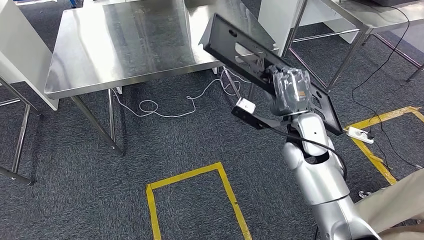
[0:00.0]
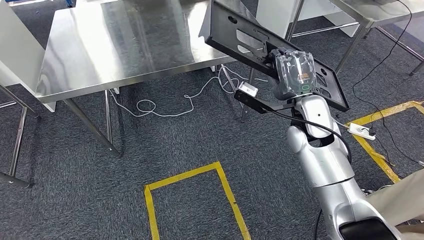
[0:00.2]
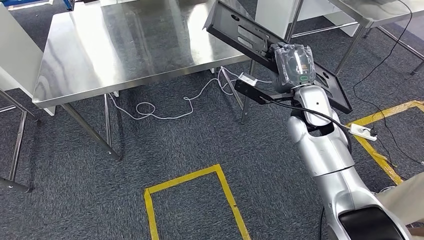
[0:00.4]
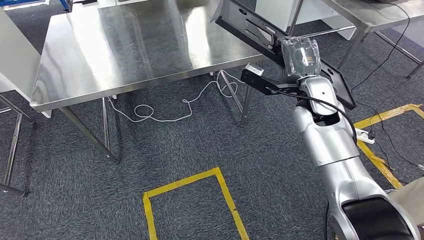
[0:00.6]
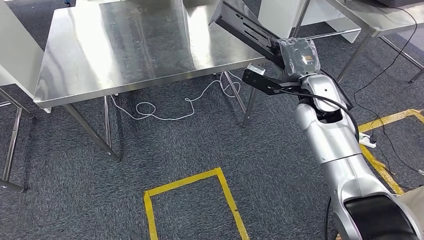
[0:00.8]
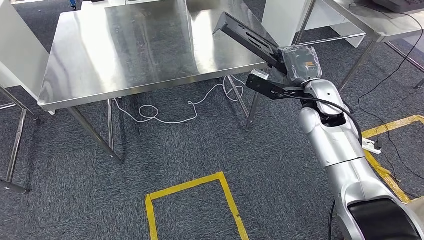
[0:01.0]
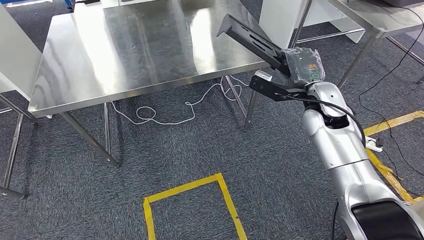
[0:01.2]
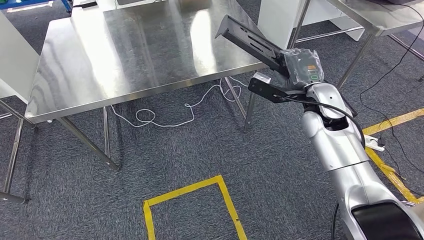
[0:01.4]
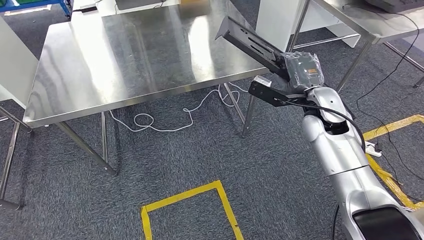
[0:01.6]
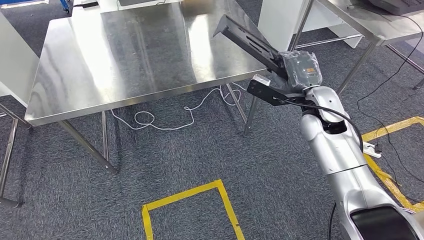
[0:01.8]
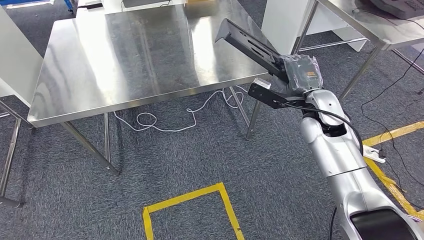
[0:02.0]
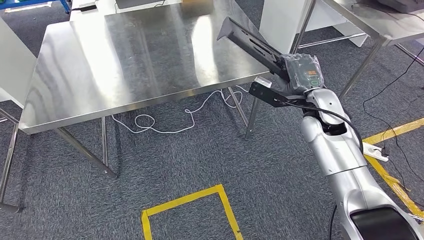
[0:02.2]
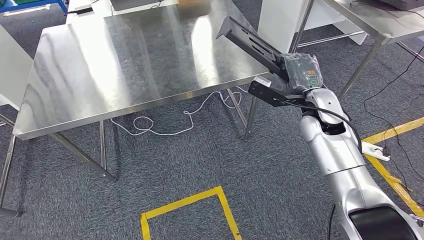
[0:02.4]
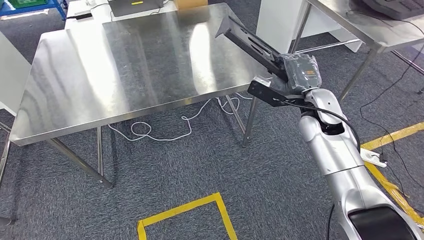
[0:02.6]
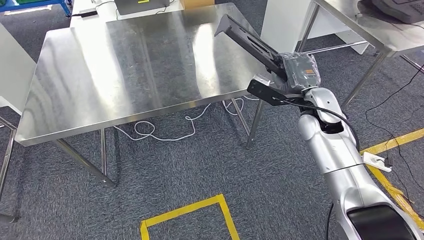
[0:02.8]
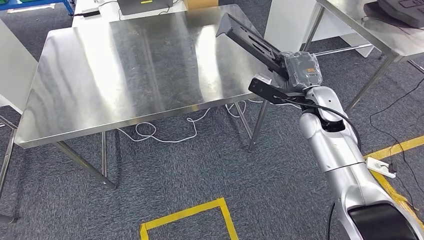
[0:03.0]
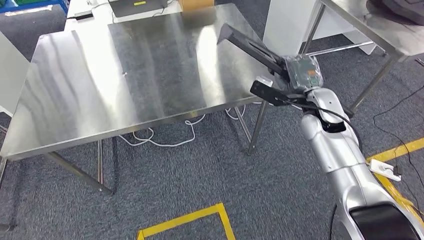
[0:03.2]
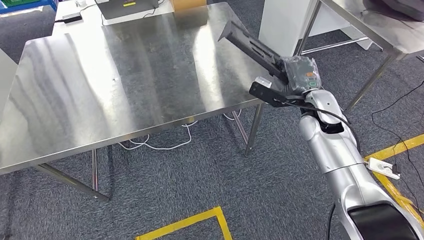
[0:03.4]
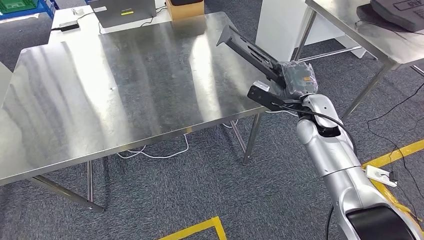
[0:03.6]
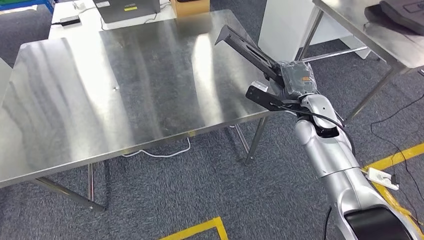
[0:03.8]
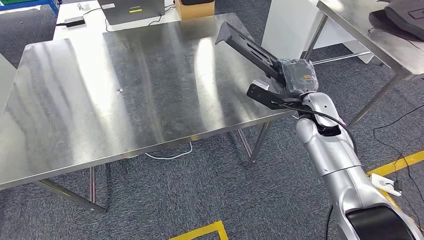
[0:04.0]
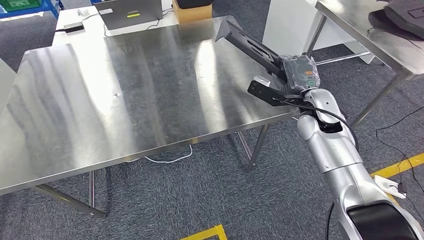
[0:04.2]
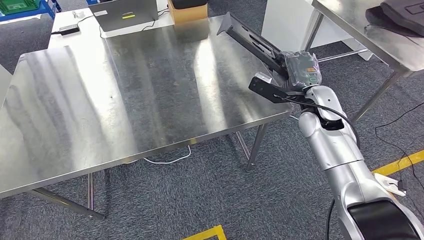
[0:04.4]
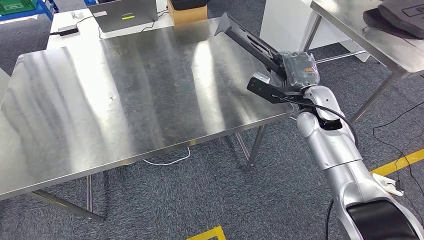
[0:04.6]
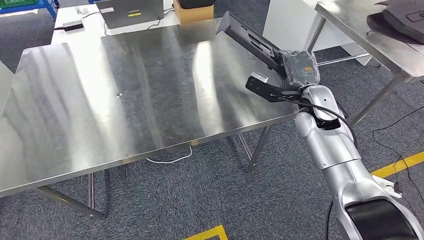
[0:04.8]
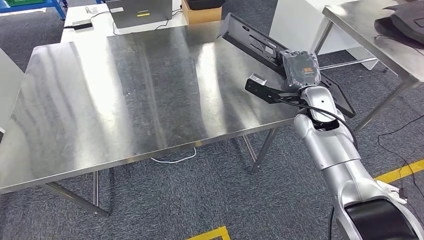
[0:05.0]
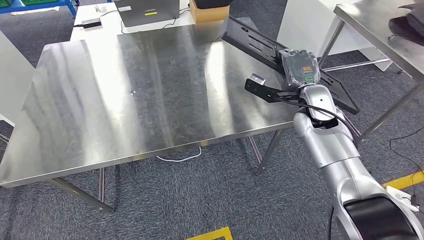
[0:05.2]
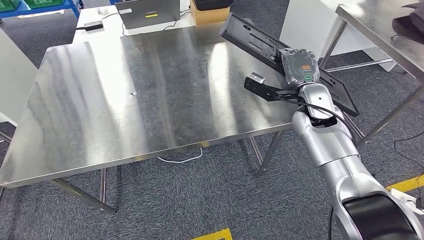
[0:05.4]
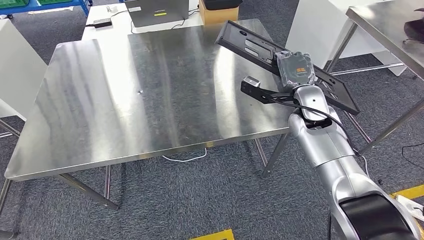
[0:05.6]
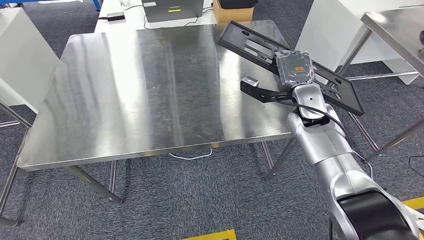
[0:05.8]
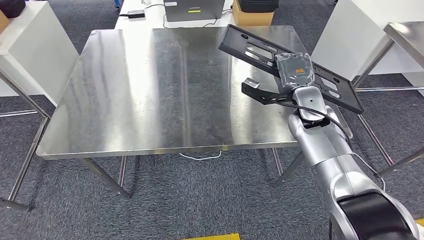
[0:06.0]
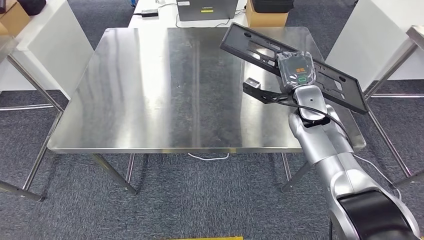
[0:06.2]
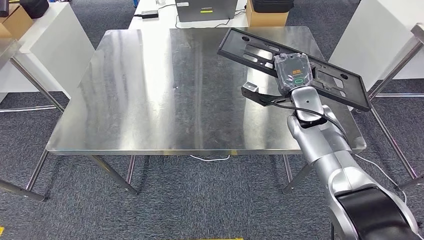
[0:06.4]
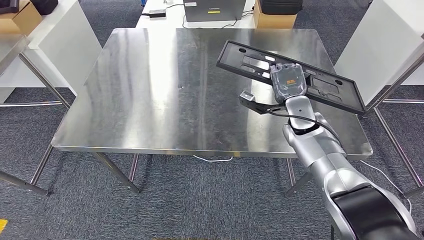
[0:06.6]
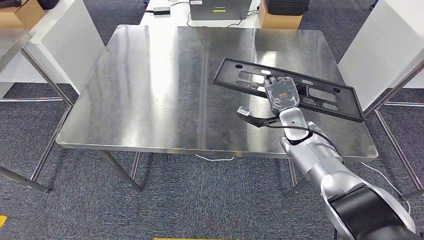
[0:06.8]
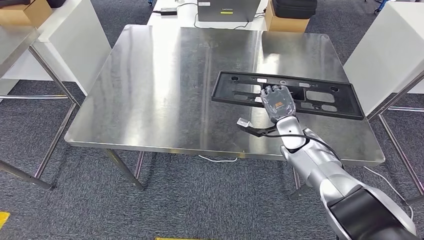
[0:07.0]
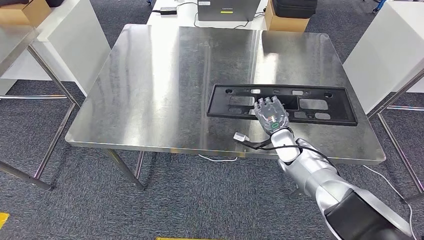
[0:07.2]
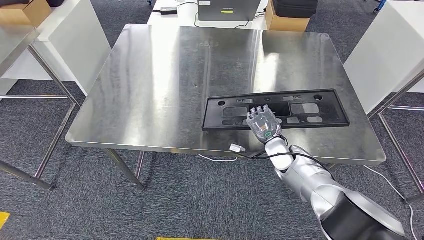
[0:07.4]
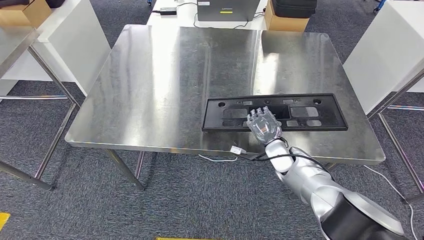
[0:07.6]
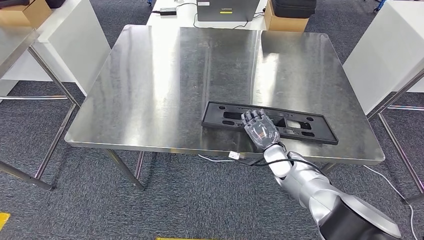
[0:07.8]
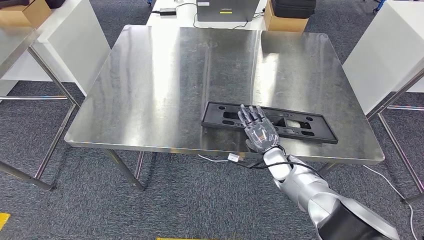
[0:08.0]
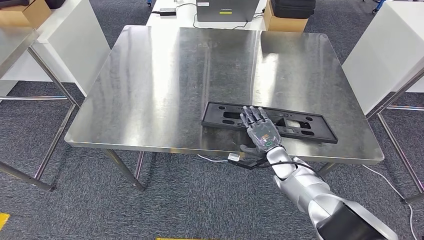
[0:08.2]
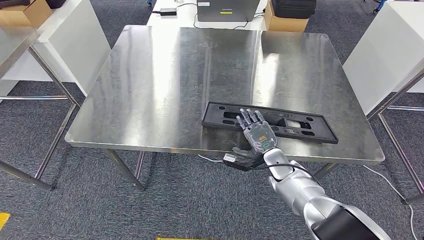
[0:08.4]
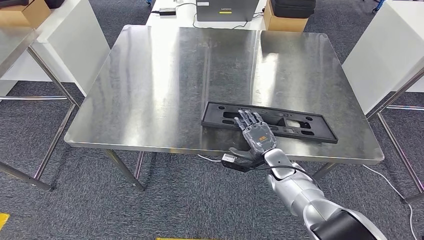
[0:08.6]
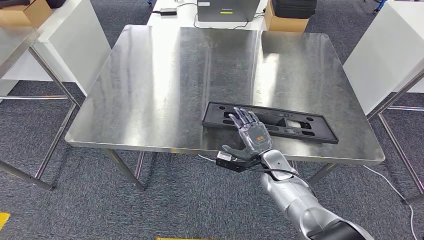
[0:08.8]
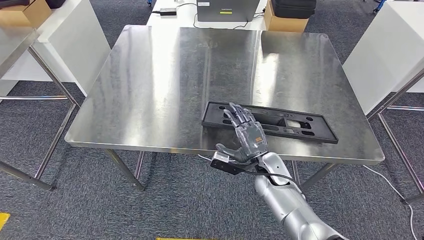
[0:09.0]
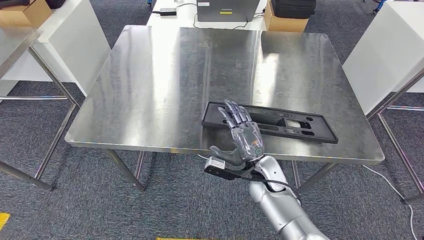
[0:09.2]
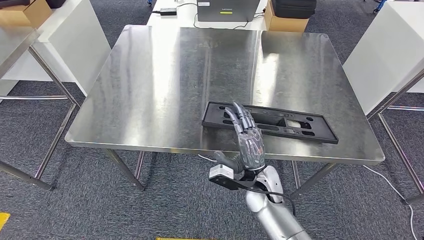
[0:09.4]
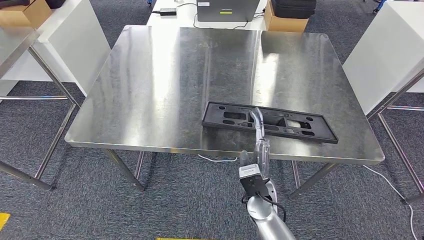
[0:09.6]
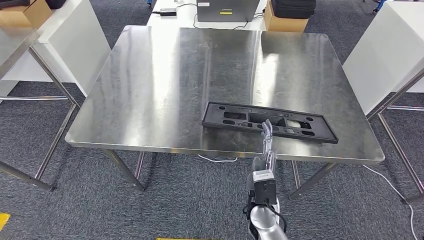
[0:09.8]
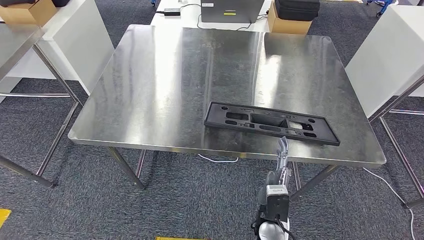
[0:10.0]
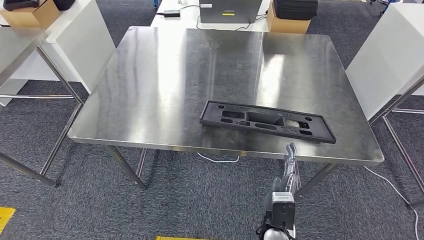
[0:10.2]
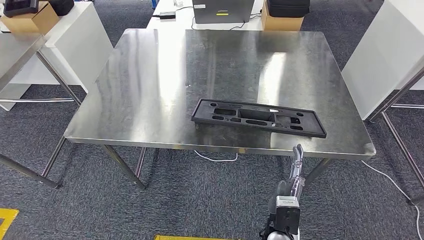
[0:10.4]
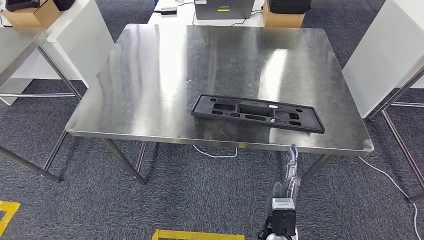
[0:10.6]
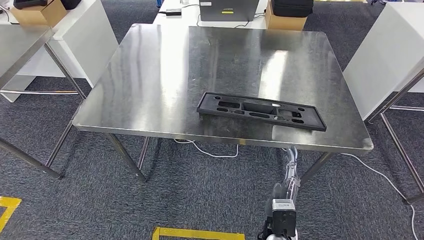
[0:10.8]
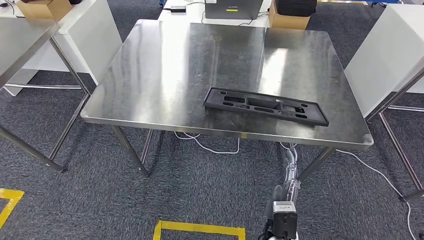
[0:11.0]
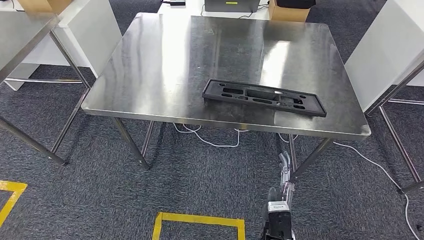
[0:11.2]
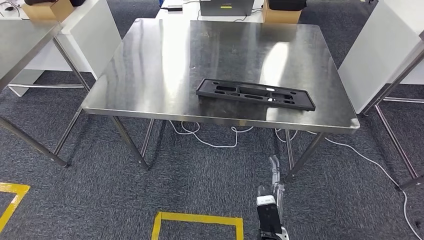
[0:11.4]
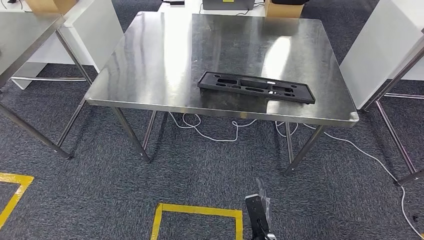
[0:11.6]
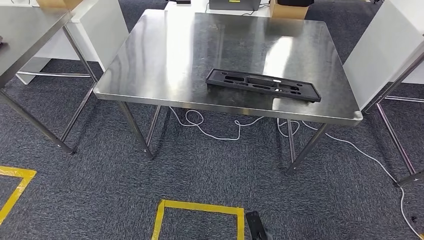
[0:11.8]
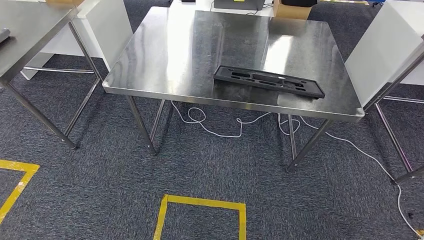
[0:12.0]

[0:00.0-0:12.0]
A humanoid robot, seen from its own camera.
Step, 0:00.0 to 0:09.4: Insert the large material into the corresponding slot on the workbench.
0:07.6 to 0:09.0: The right hand moves roughly 5 cm.

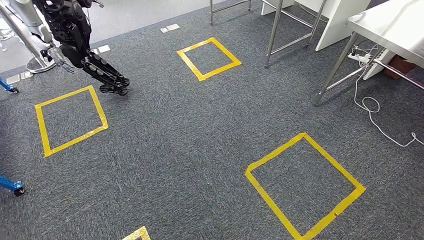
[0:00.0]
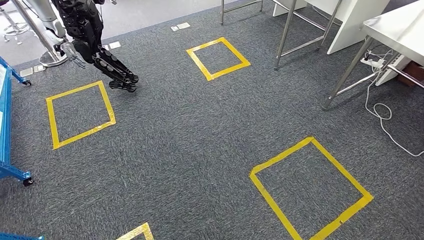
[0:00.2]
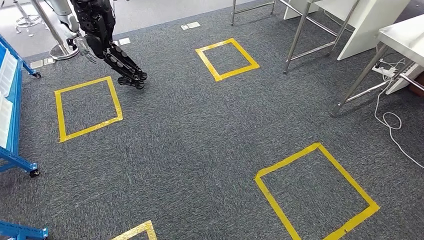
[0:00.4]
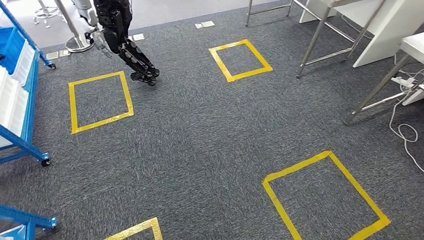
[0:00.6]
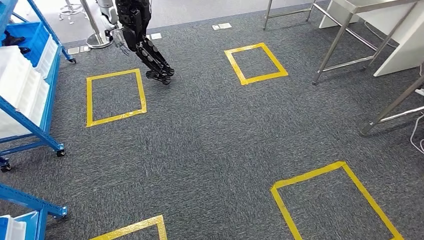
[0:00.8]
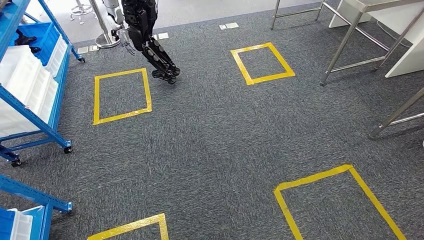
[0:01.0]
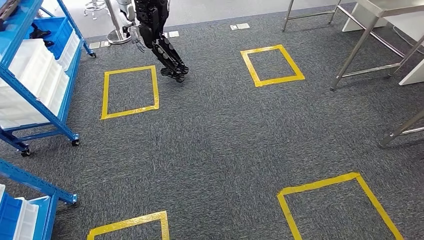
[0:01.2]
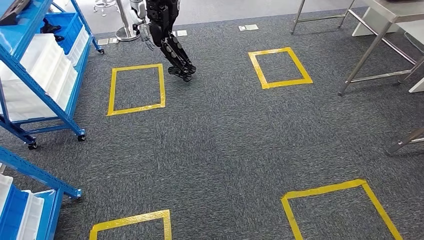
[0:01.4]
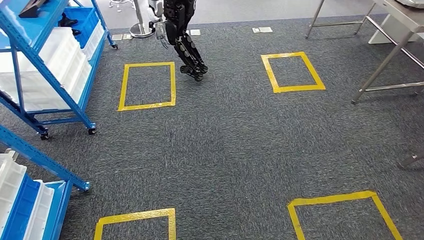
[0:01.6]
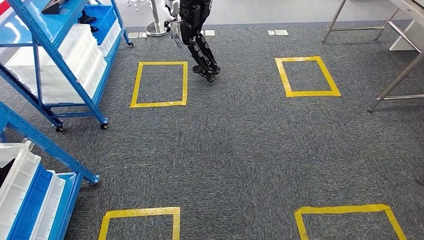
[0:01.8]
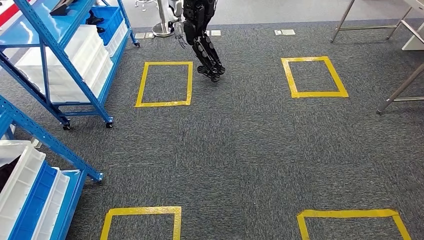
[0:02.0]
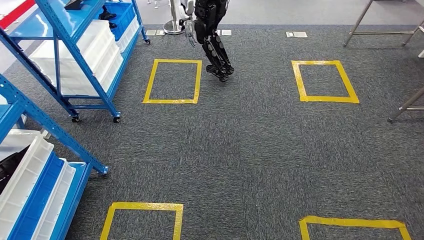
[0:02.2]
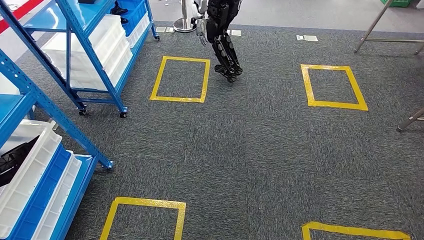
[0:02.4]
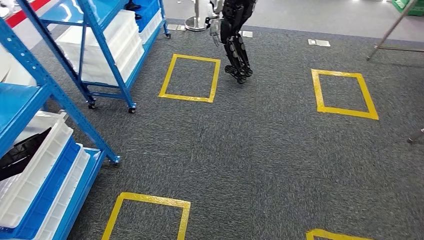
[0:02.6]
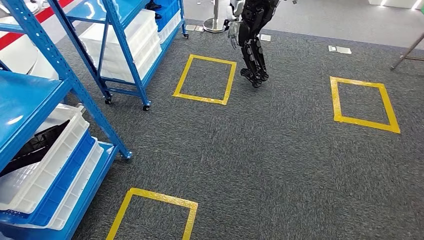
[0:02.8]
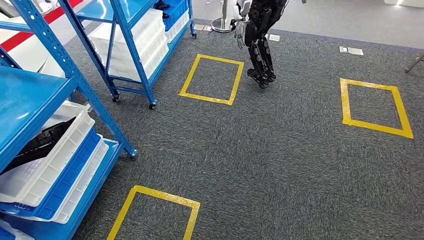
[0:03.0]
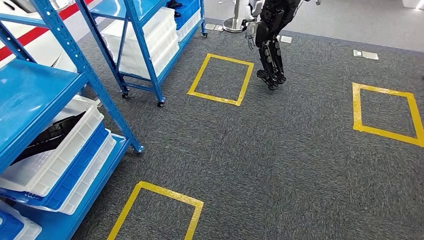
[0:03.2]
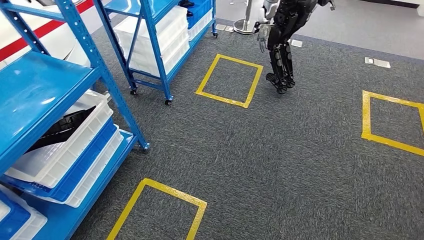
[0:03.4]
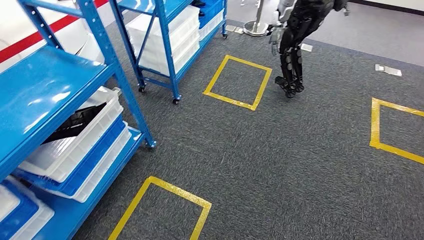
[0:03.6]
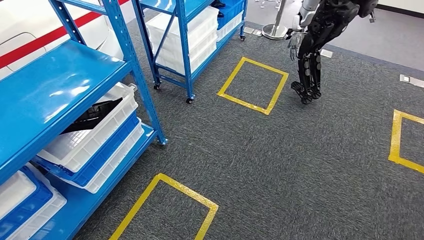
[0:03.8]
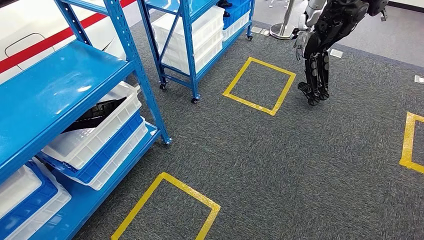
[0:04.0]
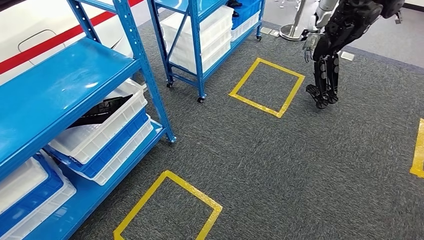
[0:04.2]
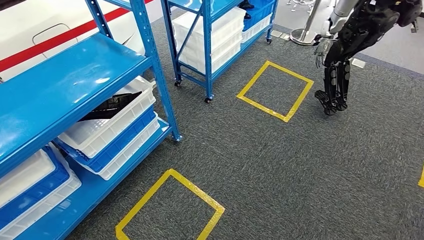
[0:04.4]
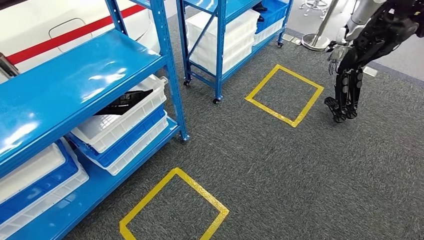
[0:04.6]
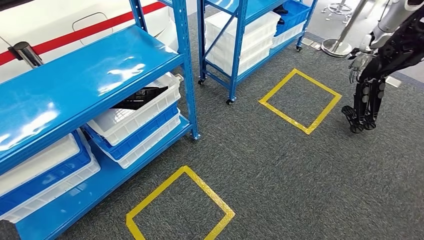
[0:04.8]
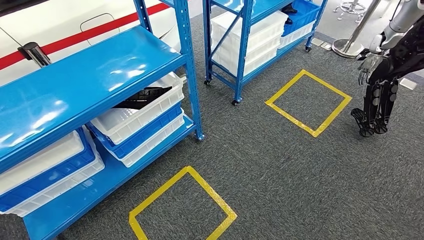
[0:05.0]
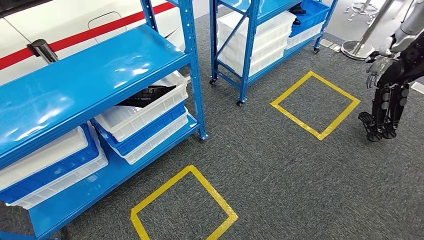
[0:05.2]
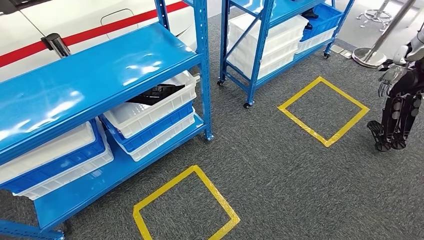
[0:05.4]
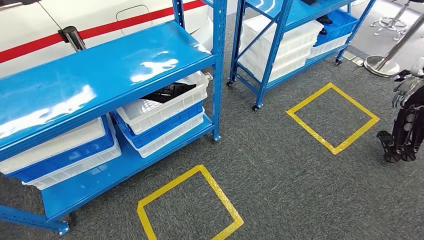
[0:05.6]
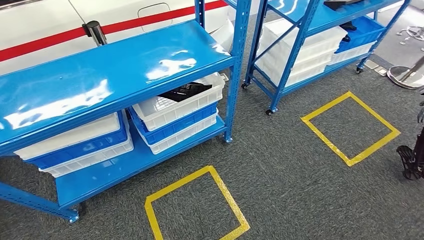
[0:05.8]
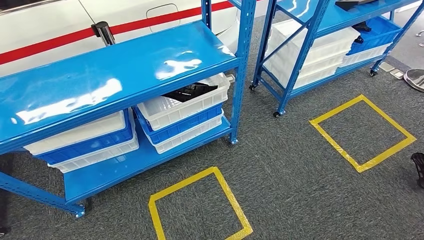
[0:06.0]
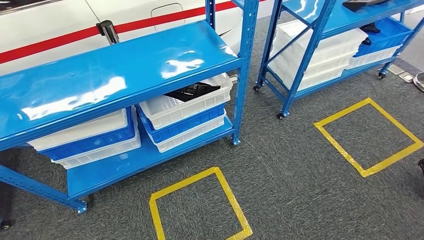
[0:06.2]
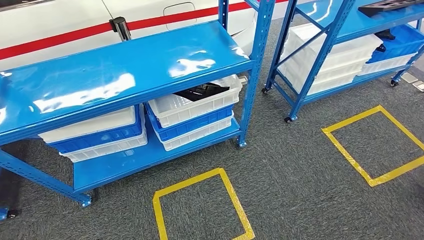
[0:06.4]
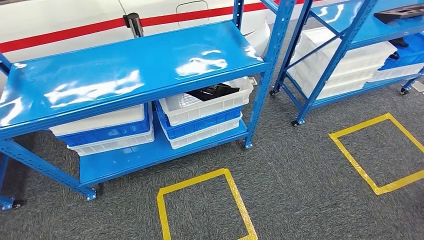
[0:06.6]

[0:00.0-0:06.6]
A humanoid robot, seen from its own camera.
Step, 0:00.0 to 0:06.6: Move to the initial position of the shelf.
